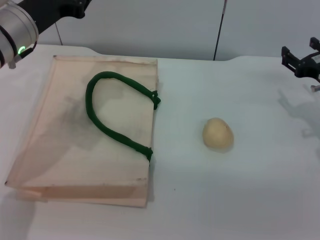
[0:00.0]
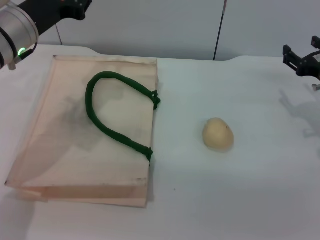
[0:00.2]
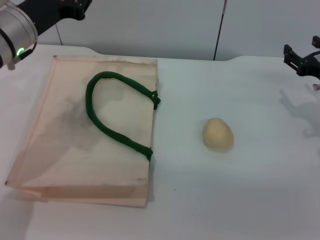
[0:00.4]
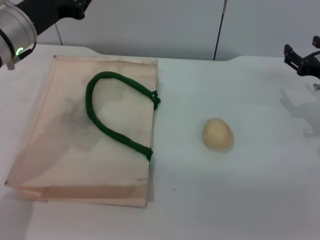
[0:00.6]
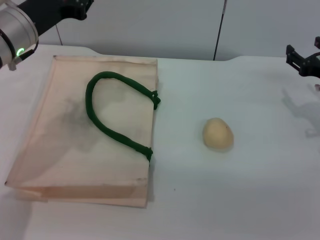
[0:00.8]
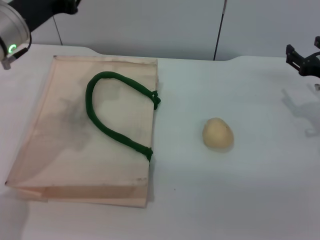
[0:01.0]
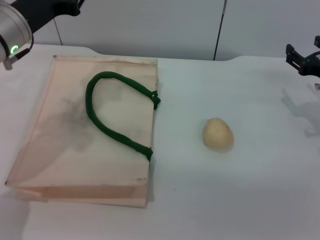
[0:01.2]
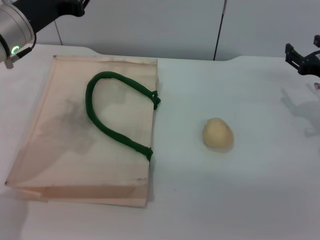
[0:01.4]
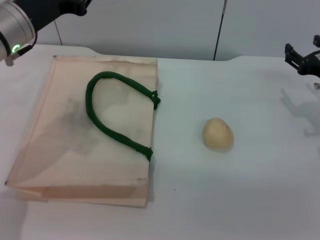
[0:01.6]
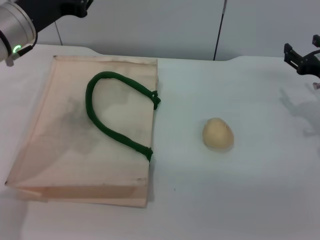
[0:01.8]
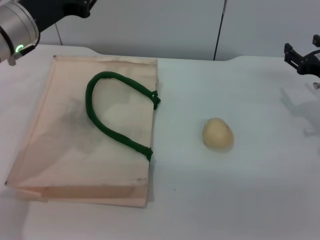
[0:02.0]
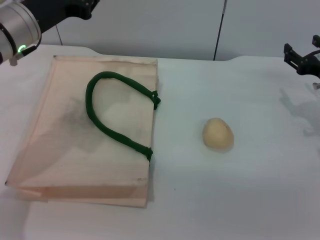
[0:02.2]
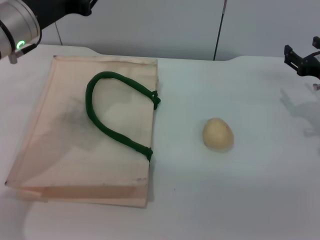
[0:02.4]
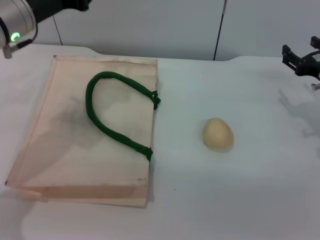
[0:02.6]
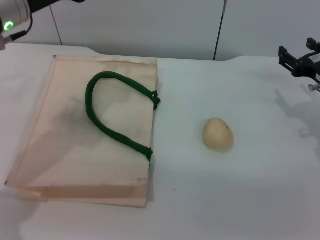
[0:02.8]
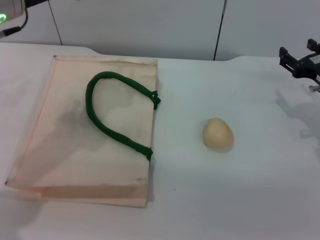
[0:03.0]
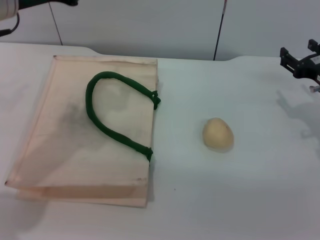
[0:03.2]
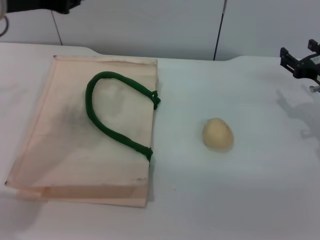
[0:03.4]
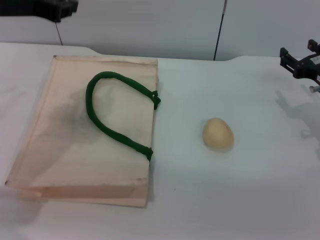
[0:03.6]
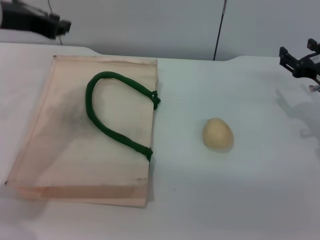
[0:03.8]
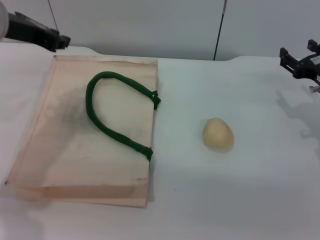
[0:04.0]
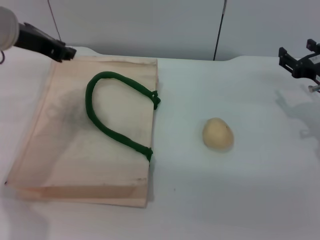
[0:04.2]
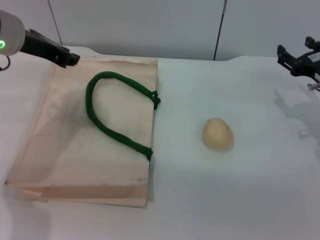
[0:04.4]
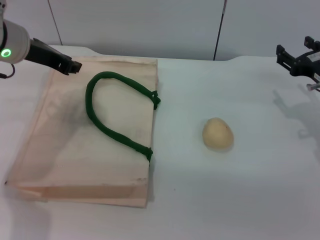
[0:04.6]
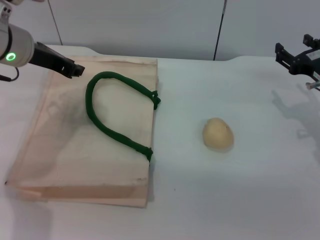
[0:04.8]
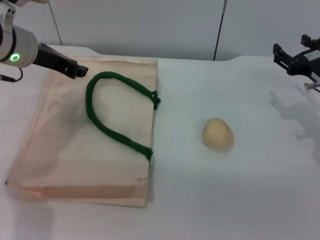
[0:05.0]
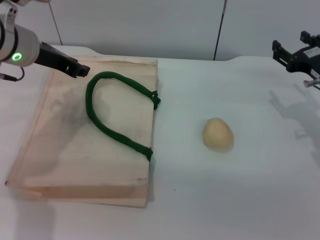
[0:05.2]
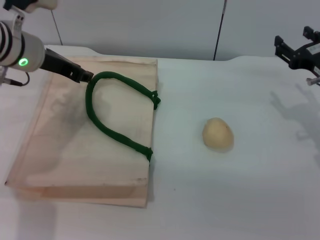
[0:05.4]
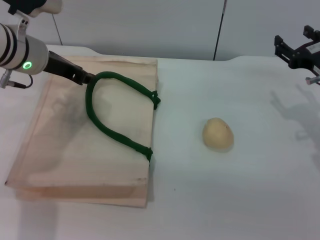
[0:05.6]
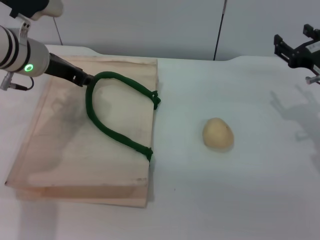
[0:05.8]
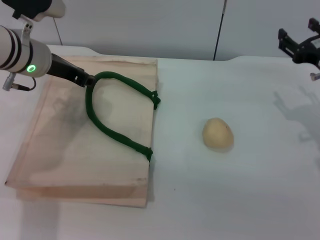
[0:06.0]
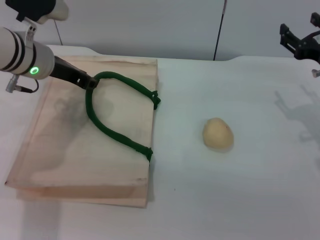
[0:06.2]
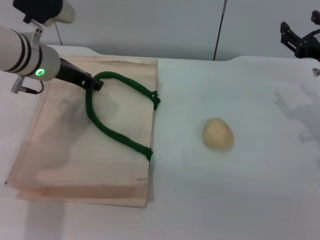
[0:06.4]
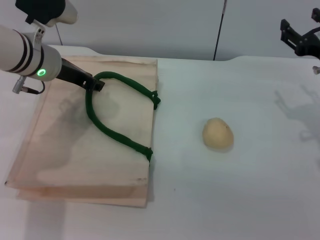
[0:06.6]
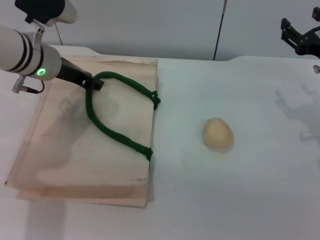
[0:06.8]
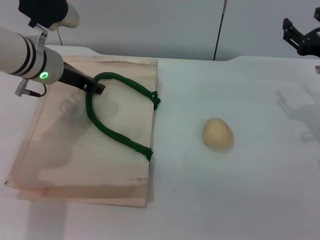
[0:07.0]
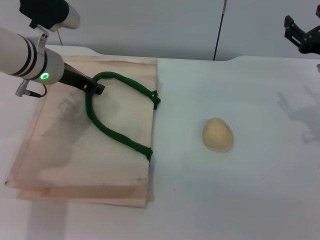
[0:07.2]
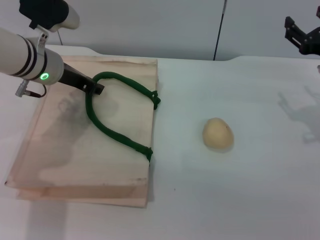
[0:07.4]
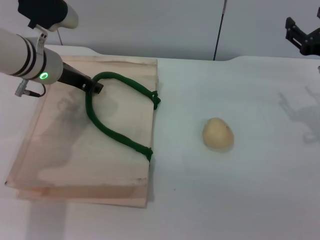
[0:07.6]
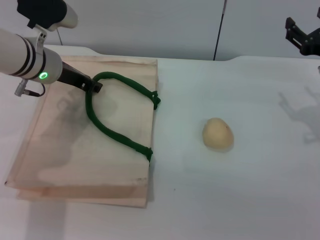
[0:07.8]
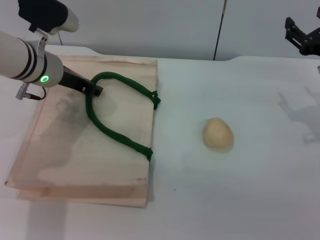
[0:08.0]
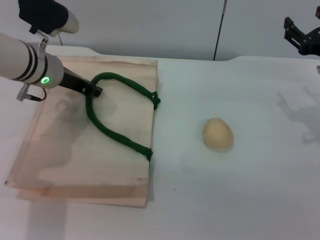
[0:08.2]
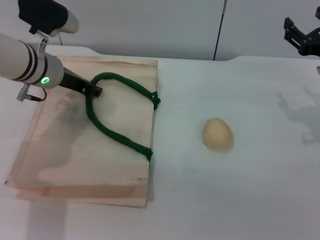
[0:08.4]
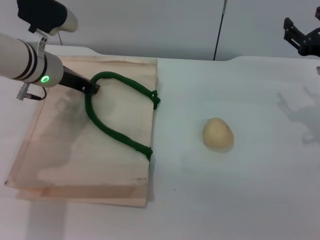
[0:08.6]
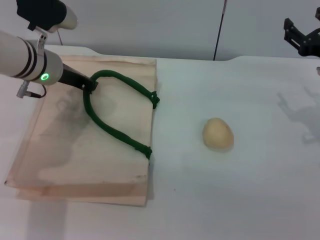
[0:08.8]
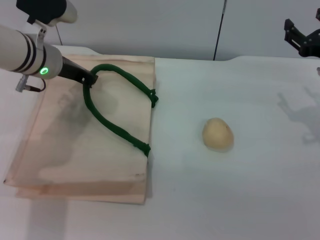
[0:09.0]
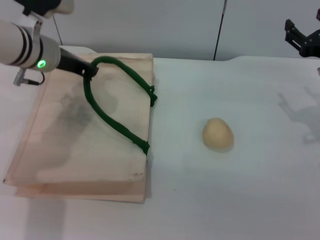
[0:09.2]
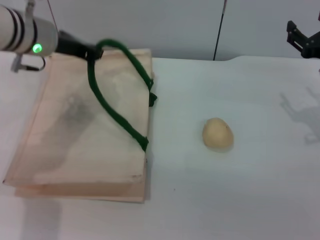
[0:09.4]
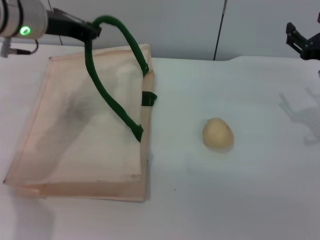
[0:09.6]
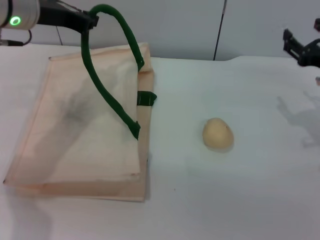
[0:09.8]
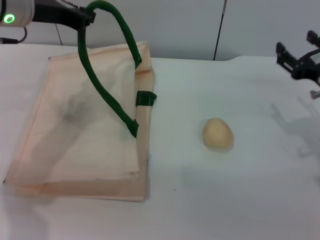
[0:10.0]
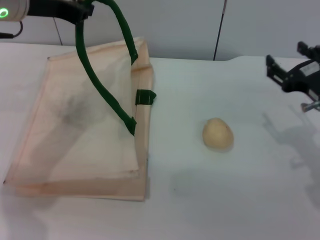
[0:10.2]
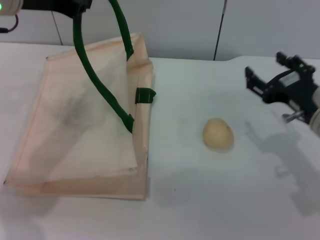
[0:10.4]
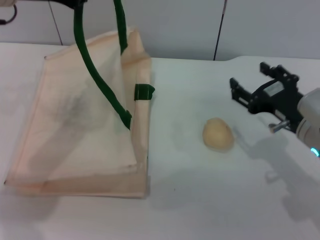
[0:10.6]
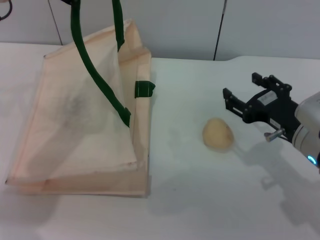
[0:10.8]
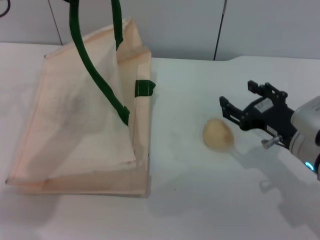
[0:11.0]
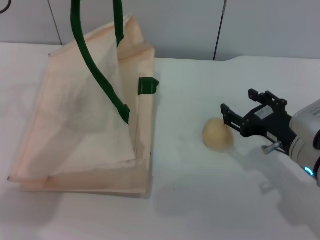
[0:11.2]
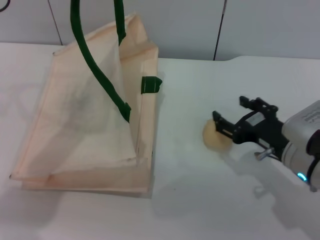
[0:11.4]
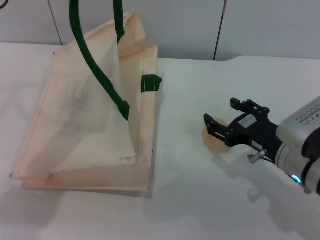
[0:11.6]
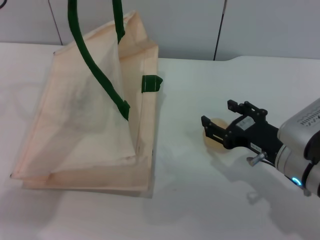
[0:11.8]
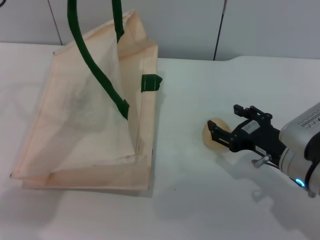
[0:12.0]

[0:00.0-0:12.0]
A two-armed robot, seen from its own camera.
Task of the whole recording: pick up the egg yolk pastry from the table and place it in the white handbag.
Step, 0:00.0 to 0:09.8: Lift the woven bag with the left gripper to open it.
0:00.0 to 0:01.6: The grippers stay close to where they were, moving slightly.
0:01.6 to 0:03.0: The left gripper goes about 5 cm upward.
0:04.4 to 0:06.0: The left gripper shifts approximately 5 cm downward, and opens its fingers.
0:06.0 to 0:07.6: The grippers make only small movements.
0:07.6 to 0:09.0: The left gripper closes its fingers.
0:09.0 to 0:10.4: The left gripper heads upward, covering about 10 cm. Meanwhile the right gripper travels backward and to the left by about 10 cm.
0:10.4 to 0:12.0: The right gripper ends up roughly 5 cm from where it was.

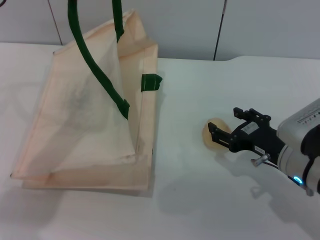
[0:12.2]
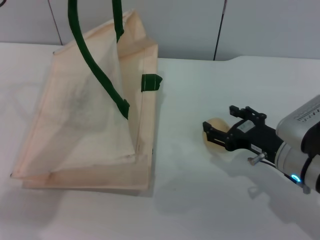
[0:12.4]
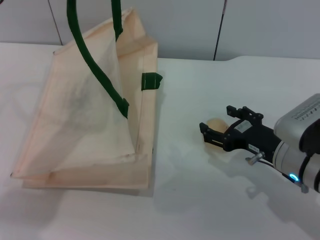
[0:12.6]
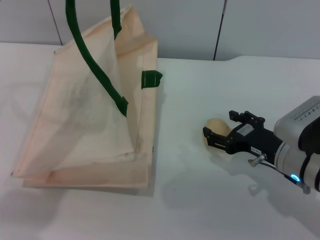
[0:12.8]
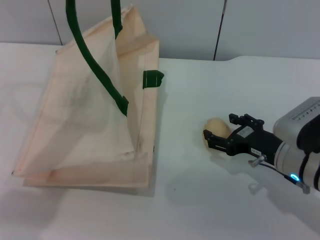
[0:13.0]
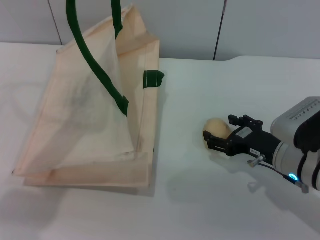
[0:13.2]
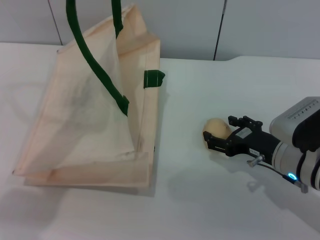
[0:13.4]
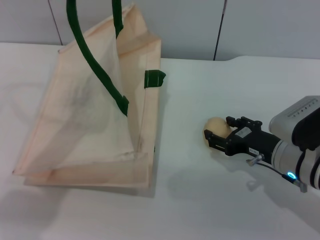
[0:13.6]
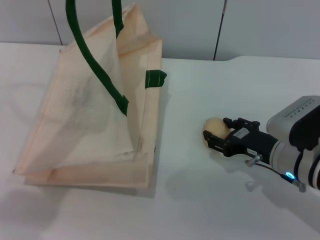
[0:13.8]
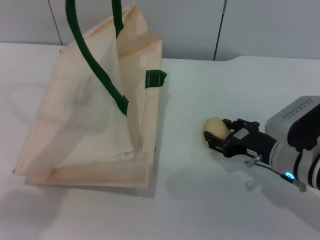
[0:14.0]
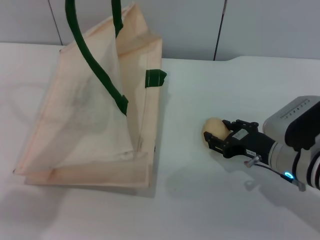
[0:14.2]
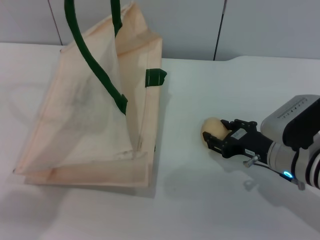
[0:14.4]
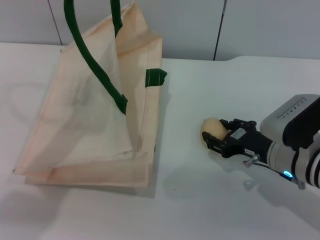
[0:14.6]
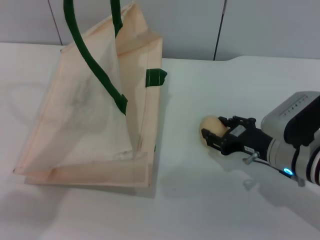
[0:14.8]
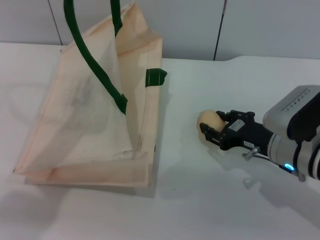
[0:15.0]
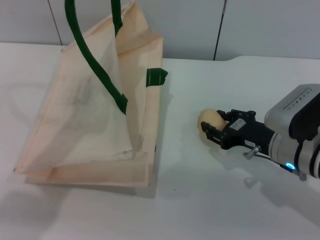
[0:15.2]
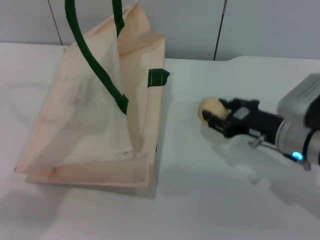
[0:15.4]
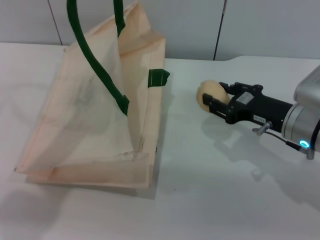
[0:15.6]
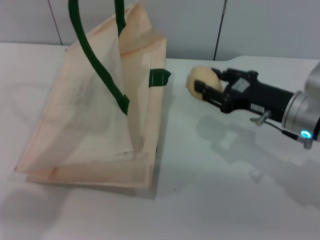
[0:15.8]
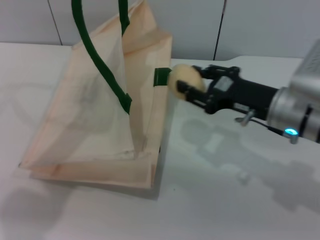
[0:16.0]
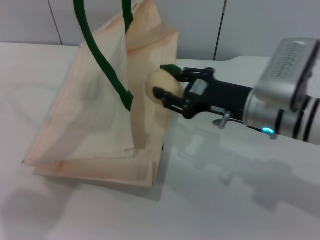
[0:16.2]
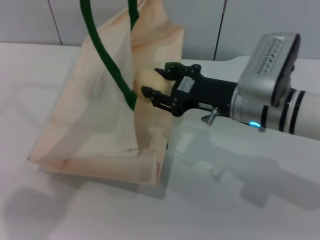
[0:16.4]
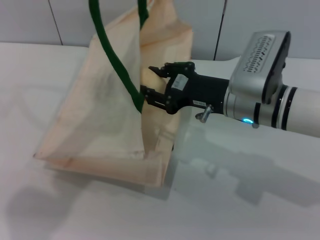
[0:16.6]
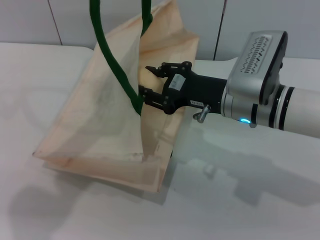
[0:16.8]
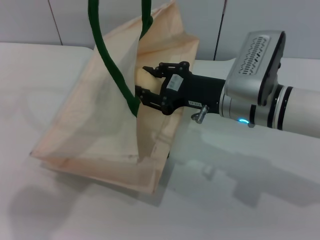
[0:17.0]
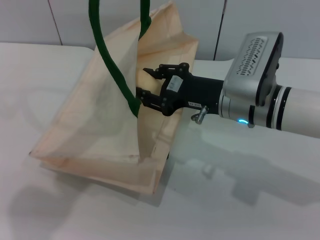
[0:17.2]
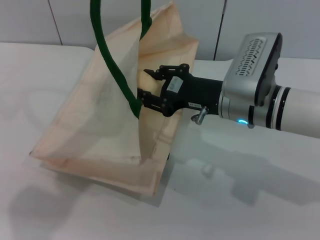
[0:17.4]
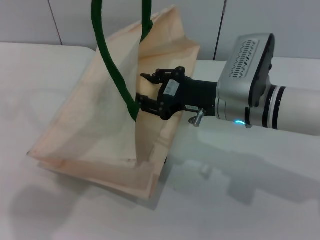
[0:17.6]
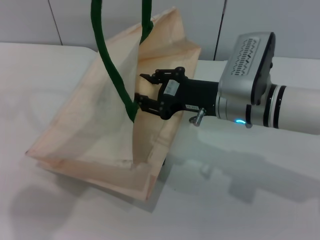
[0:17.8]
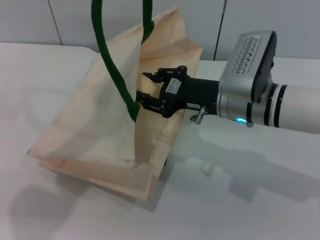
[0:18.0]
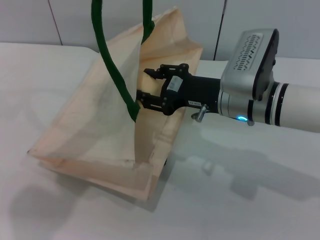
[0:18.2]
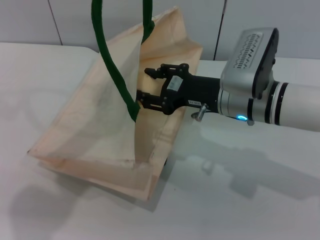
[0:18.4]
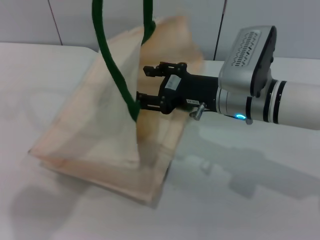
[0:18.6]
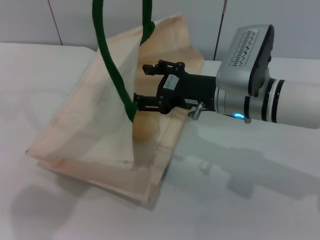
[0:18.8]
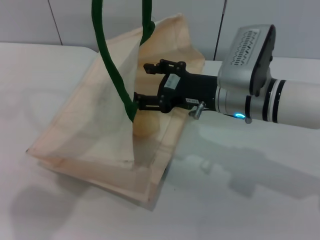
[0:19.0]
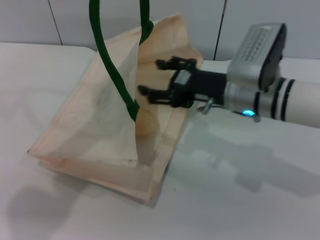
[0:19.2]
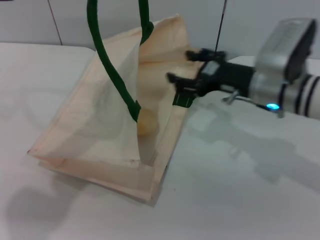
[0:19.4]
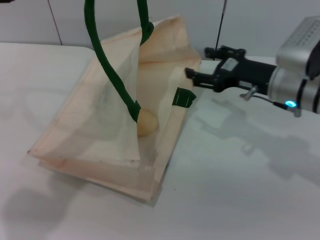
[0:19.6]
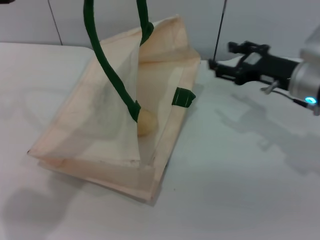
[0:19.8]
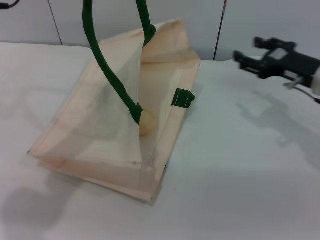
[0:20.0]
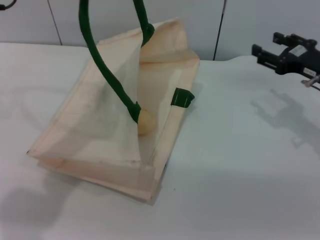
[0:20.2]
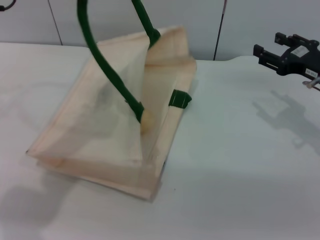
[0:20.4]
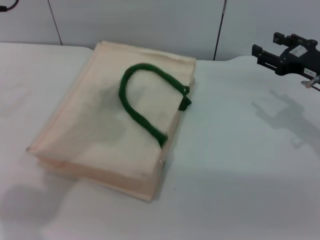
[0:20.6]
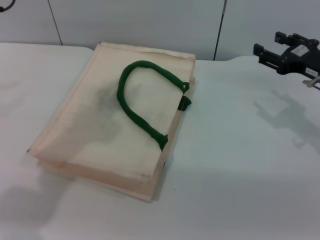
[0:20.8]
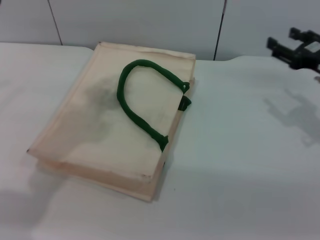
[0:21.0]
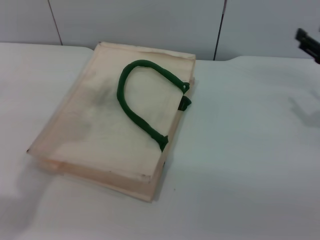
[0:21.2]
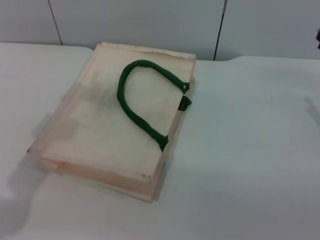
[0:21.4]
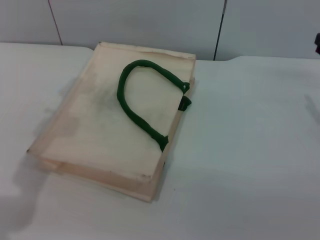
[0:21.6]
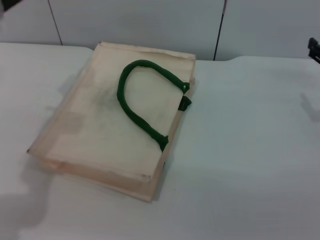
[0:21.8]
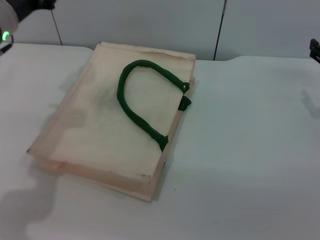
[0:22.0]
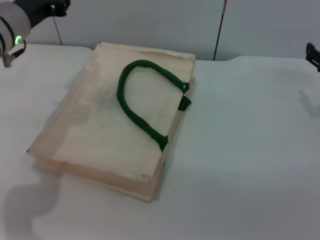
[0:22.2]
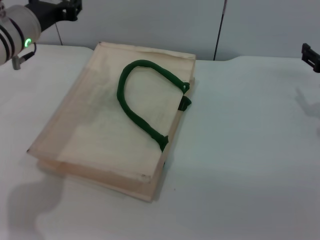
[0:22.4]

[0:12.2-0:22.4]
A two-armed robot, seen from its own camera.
Task of the whole recording: pick up the egg yolk pastry from the table and place it in the white handbag.
Step, 0:12.2 to 0:15.6: Pick up the egg yolk pastry with the right gripper.
Step, 0:15.8 to 0:19.4: Place the egg yolk pastry into the woven bag with the right gripper.
Step, 0:19.8 to 0:21.0: Lower the woven bag with the left gripper to close it.
0:12.2 to 0:13.6: The grippers make only small movements.
0:13.6 to 0:15.2: The right gripper closes.
0:15.2 to 0:16.6: The right gripper travels to the left and upward by roughly 10 cm.
0:16.6 to 0:18.0: Neither gripper changes place.
0:18.0 to 0:19.4: The right gripper moves about 5 cm, and opens.
0:19.4 to 0:21.0: The left gripper opens. The right gripper heads to the right, covering about 15 cm.
0:21.0 to 0:22.4: The left gripper heads downward, covering about 10 cm.
